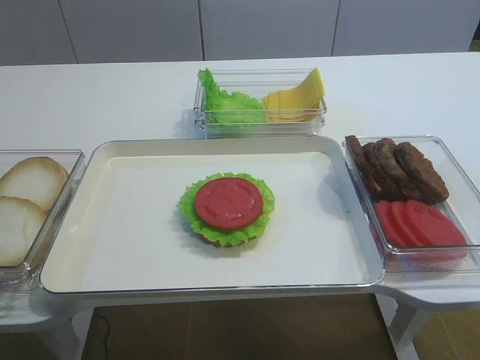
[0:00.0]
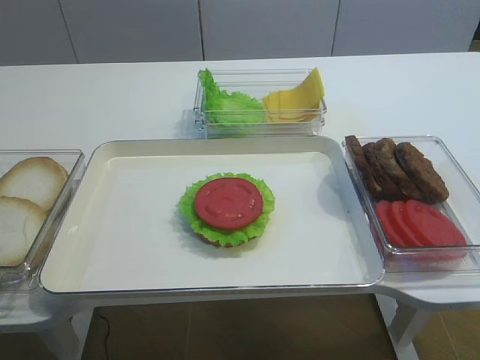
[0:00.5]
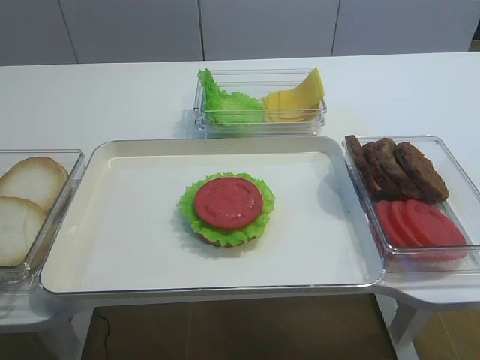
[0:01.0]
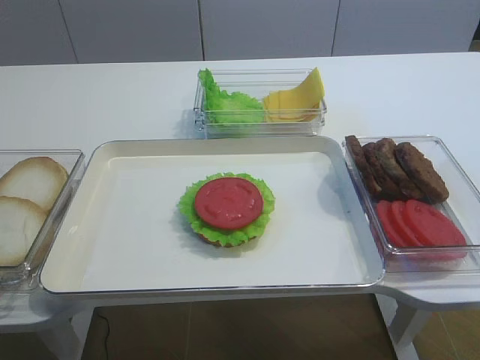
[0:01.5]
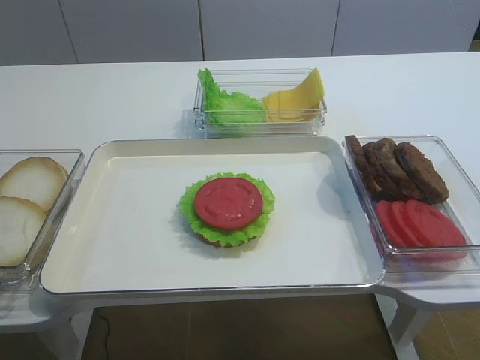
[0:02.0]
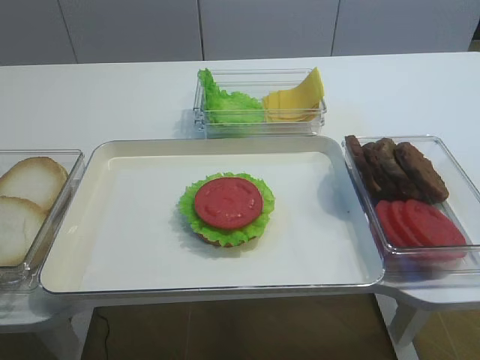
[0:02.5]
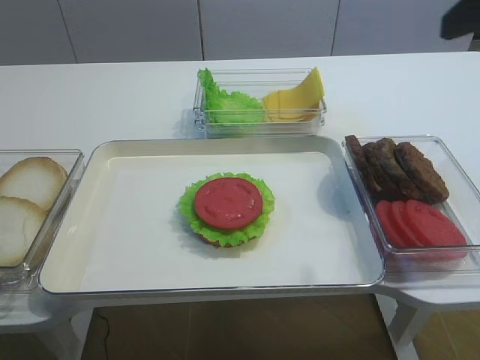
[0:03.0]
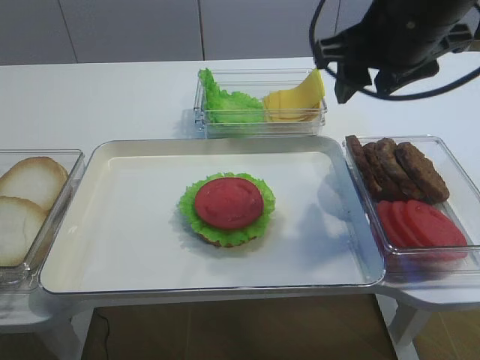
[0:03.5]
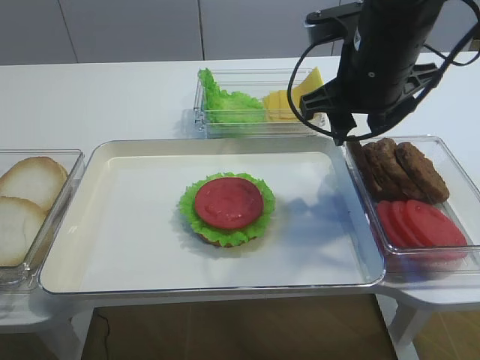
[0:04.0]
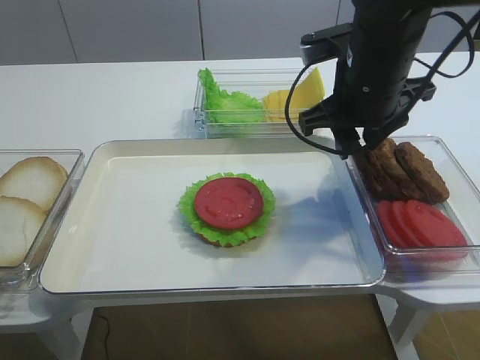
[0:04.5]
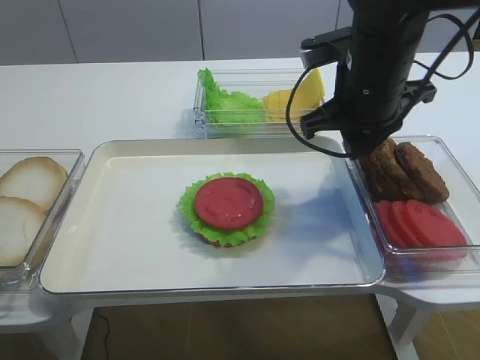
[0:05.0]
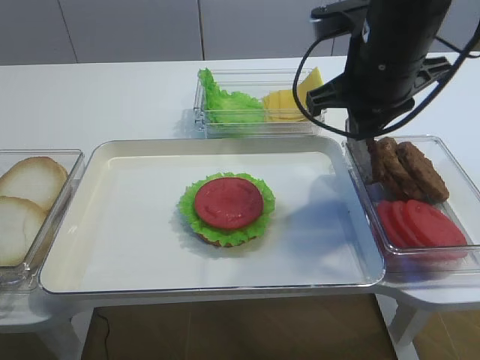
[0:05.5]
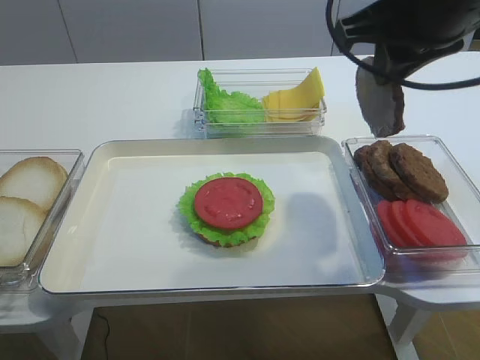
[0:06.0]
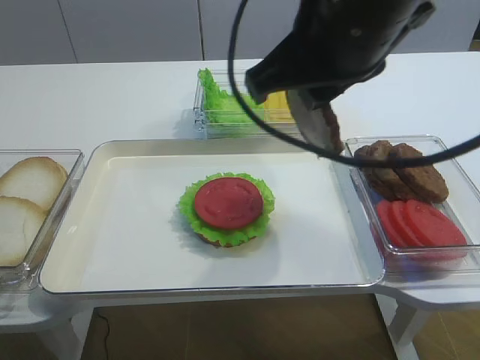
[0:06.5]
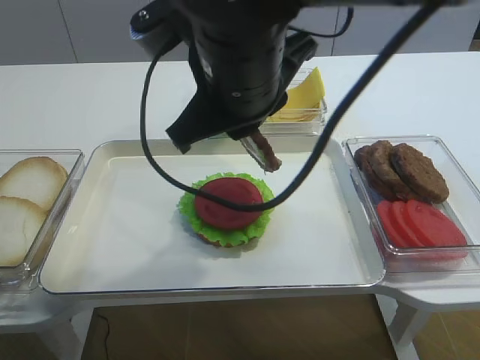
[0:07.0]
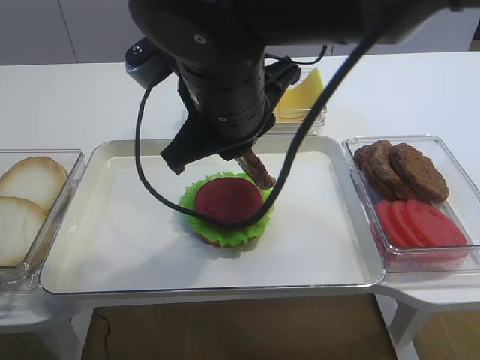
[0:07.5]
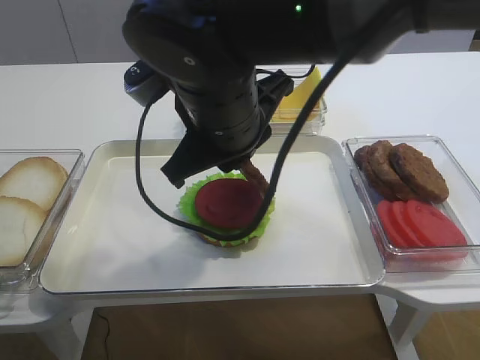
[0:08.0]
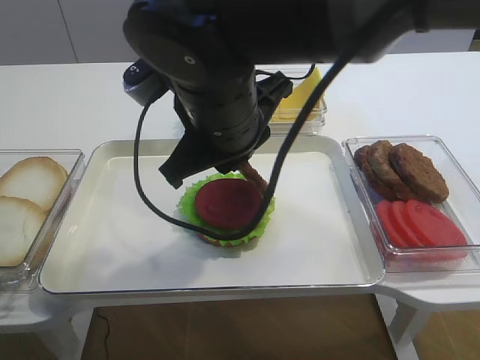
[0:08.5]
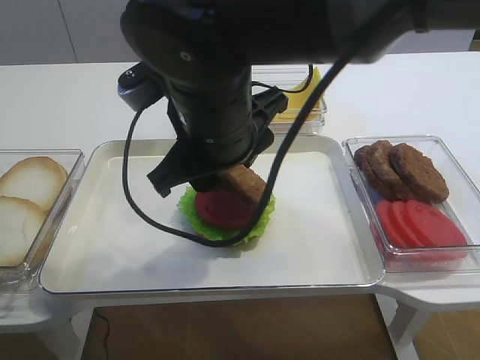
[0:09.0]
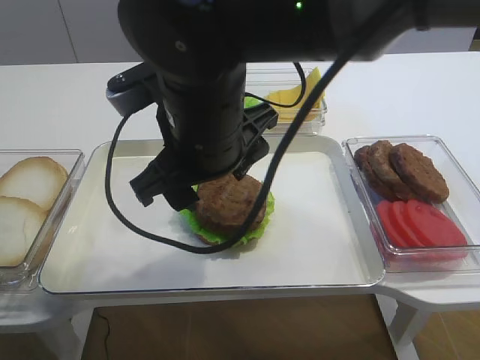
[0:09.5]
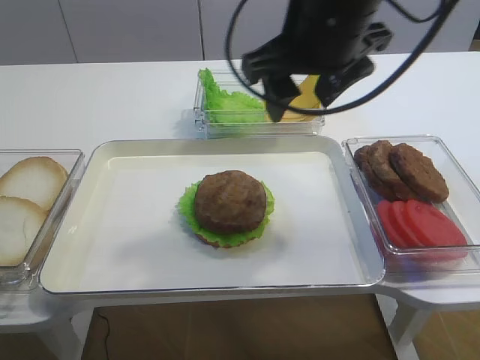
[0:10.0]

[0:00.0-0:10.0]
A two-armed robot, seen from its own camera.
Step, 0:00.0 to 0:05.5: Pick up the cutlet with the right gripper.
Step, 0:06.0 to 0:09.0: Place the cutlet on the tomato slice with the right gripper.
0:02.0 to 0:04.0: The right gripper goes roughly 35 cm forward and to the left.
0:04.0 to 0:06.0: The right gripper heads upward, covering approximately 5 cm, and closes its fingers.
0:06.0 to 0:08.0: The right gripper heads to the left and downward, covering about 20 cm.
0:08.0 to 0:10.0: The right gripper is displaced to the right and upward by approximately 10 cm, and opens its fingers.

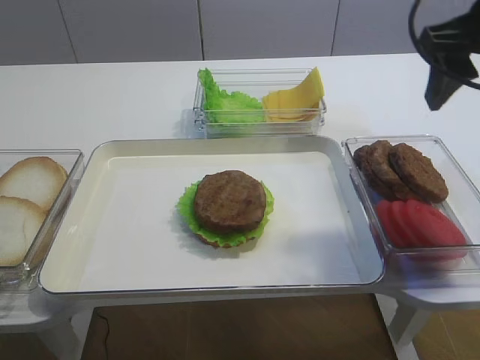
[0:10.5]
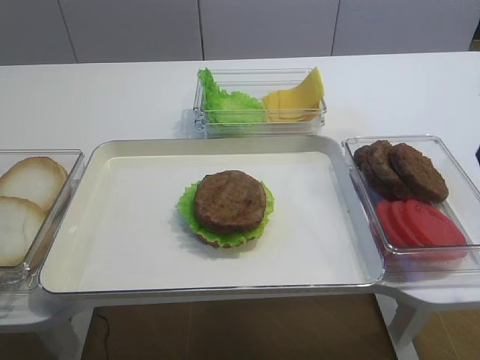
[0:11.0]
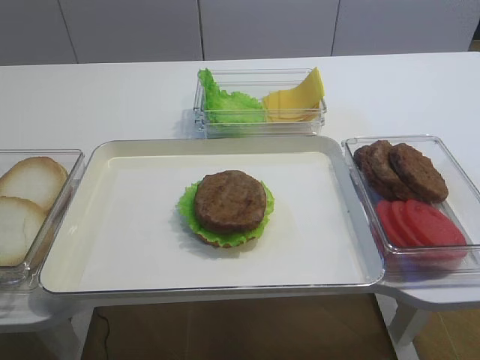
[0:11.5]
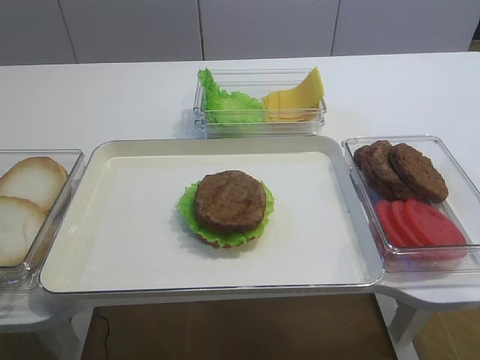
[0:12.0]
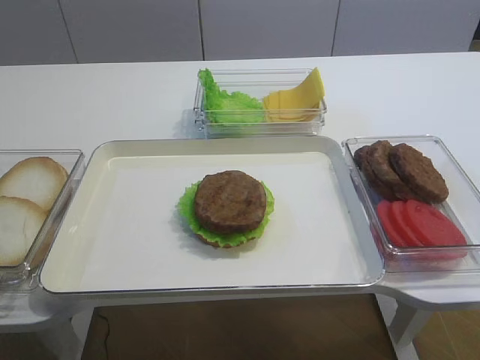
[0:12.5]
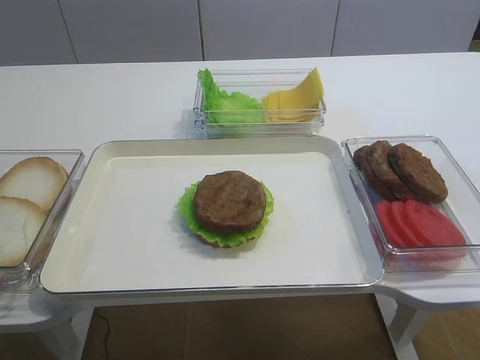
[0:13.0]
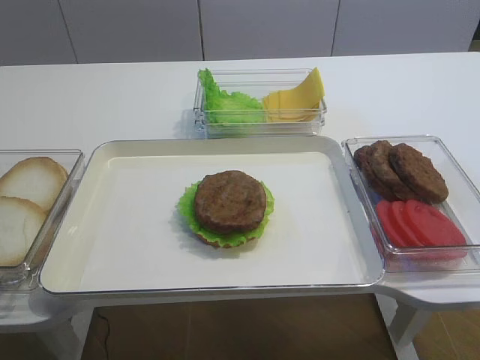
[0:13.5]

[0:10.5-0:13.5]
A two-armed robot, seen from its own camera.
0:10.5 to 0:12.0: The right gripper heads backward, covering roughly 30 cm.

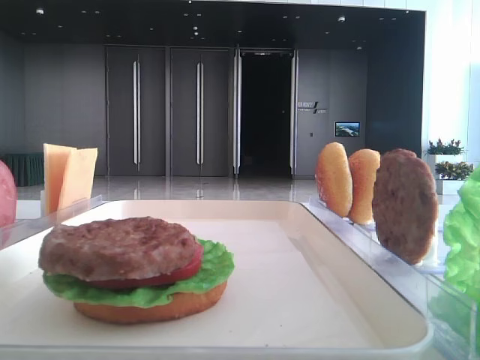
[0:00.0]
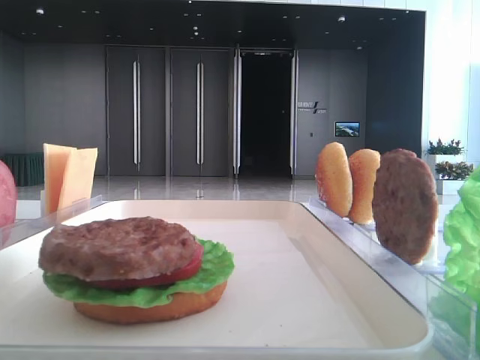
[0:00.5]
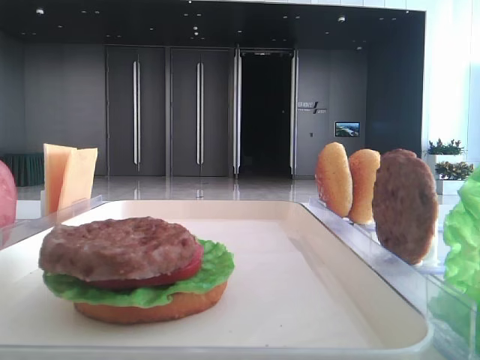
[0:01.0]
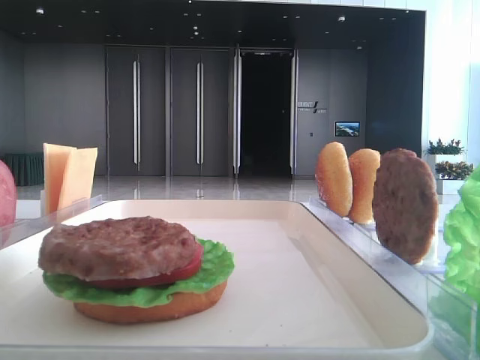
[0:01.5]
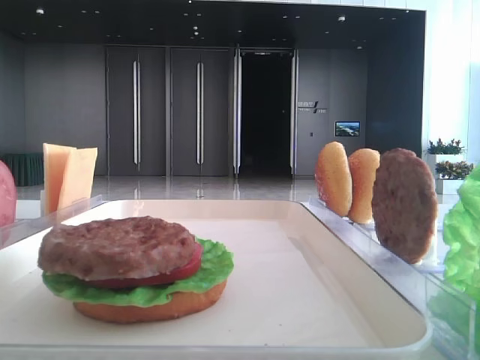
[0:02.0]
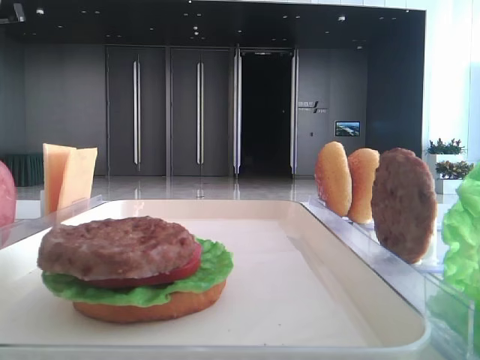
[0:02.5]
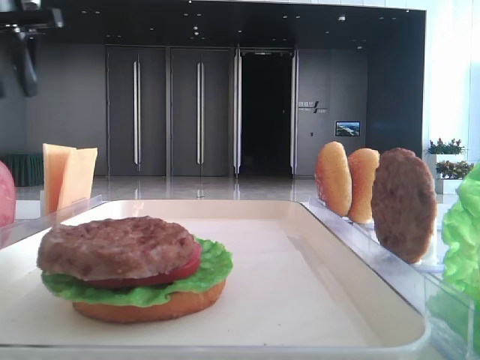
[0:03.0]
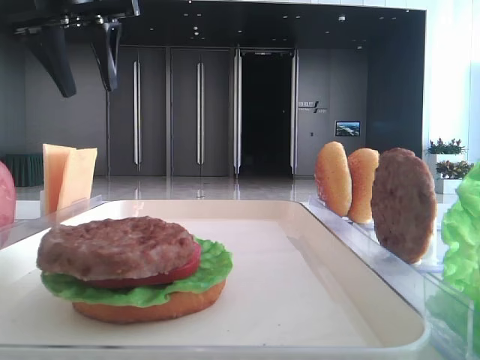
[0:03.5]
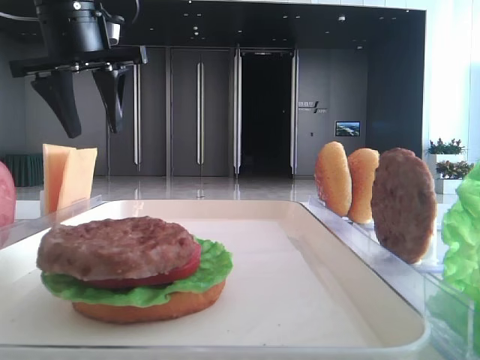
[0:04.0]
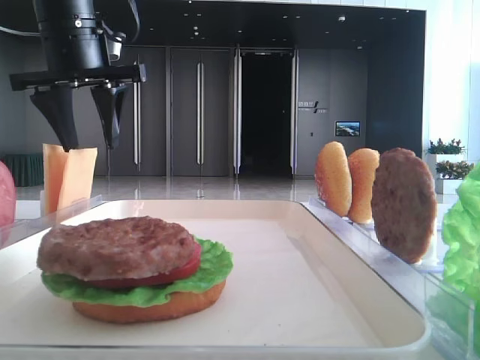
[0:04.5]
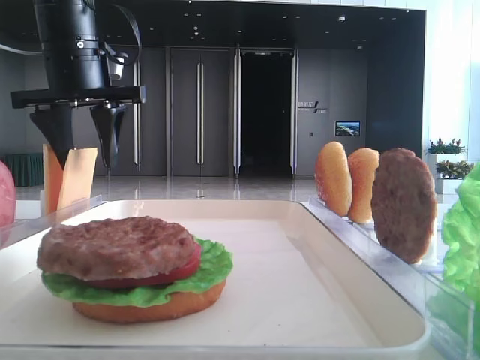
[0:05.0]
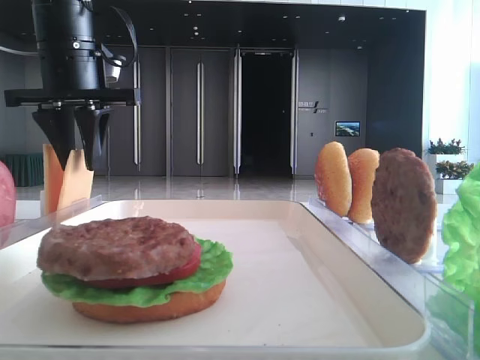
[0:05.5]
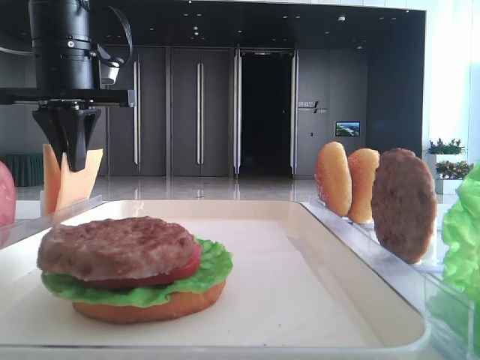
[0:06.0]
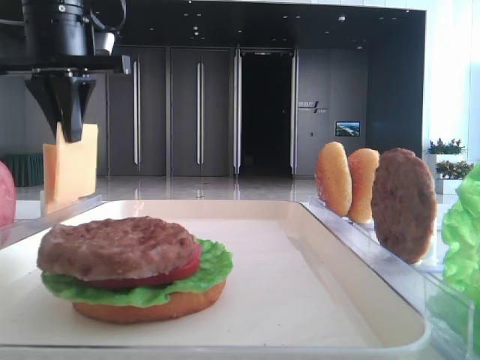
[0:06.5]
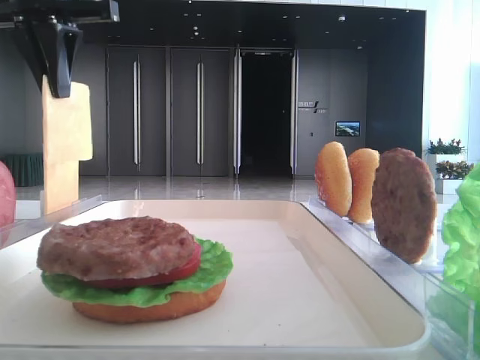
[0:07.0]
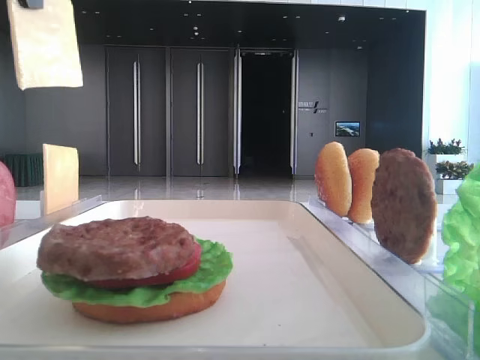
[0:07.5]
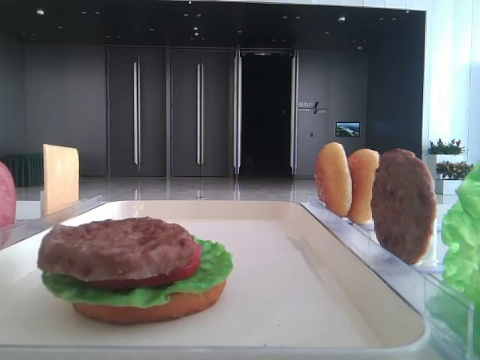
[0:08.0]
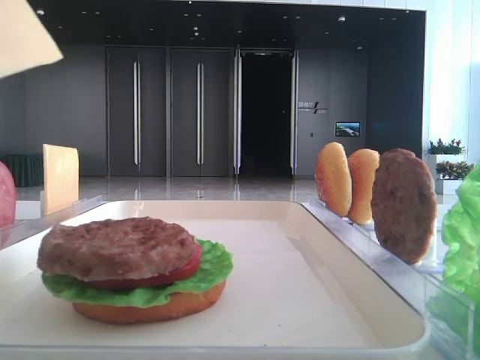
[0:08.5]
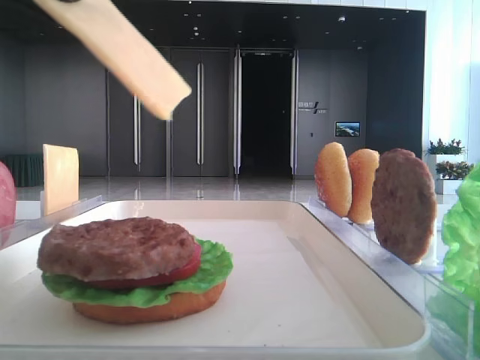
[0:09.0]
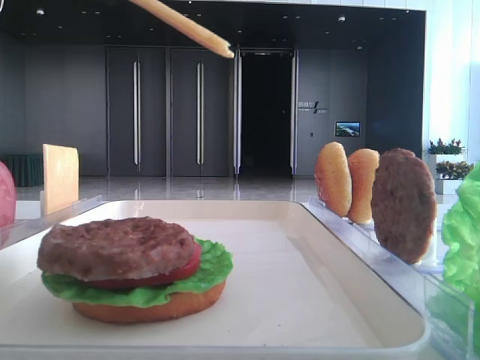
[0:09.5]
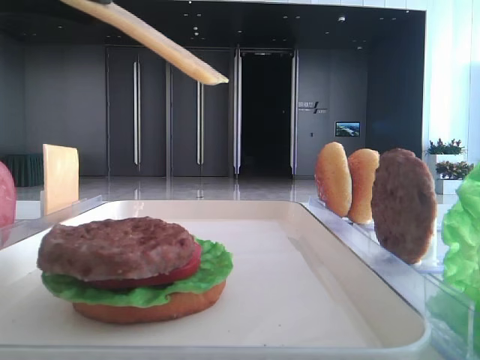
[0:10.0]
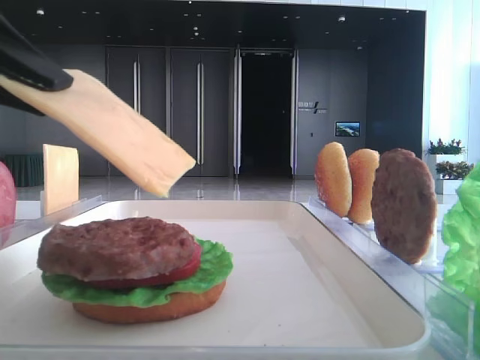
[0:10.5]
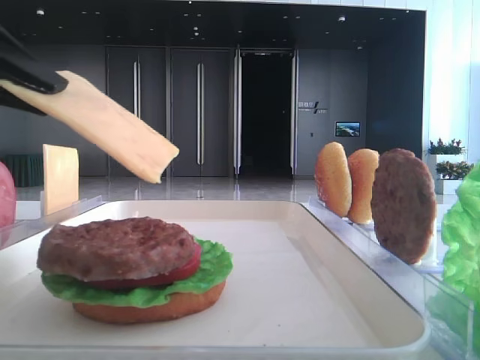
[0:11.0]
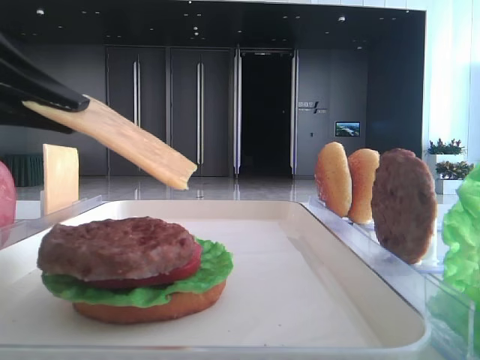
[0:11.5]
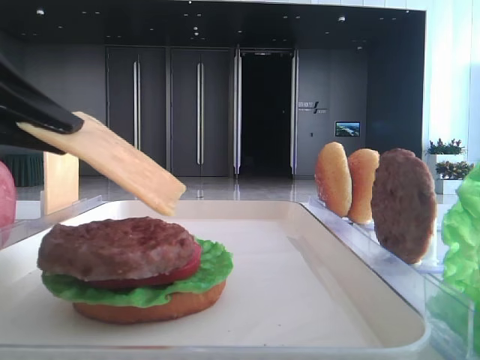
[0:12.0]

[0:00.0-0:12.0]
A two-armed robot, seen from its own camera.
Step, 0:00.0 to 0:06.0: Pick up the cheese slice with the left hand.
0:02.0 to 0:04.0: The left gripper goes roughly 20 cm to the right and forward.
0:04.0 to 0:06.0: The left gripper closes up.
0:06.0 to 0:08.0: The left gripper heads backward and upward, covering approximately 25 cm.
0:08.0 to 0:10.0: The left gripper moves downward, about 15 cm.
0:10.0 to 0:12.0: The left gripper moves downward, approximately 5 cm.

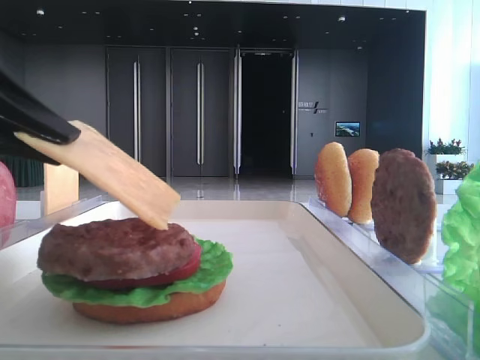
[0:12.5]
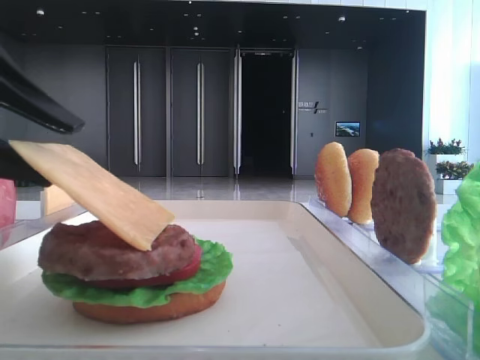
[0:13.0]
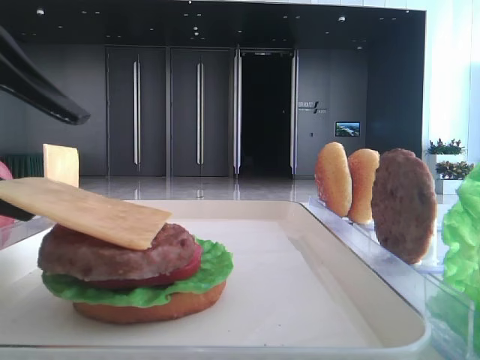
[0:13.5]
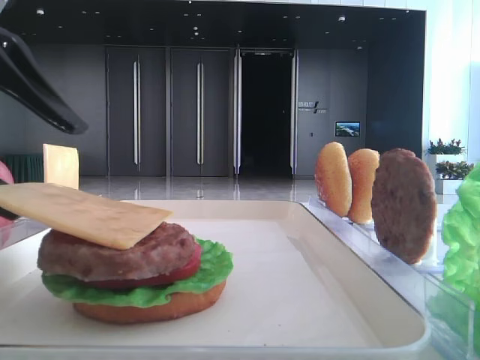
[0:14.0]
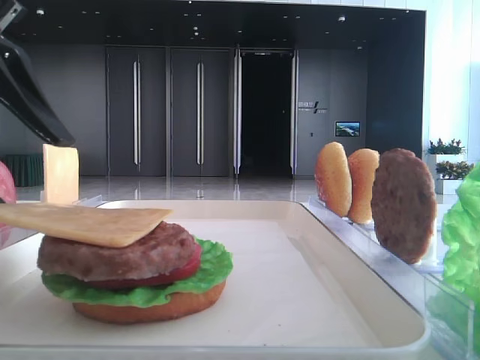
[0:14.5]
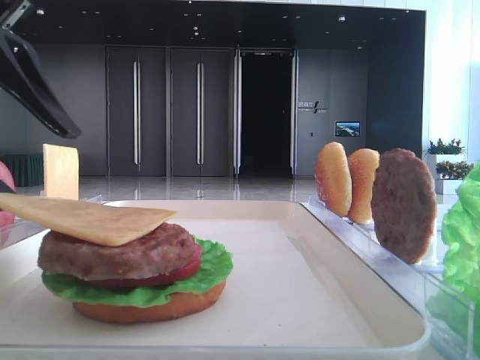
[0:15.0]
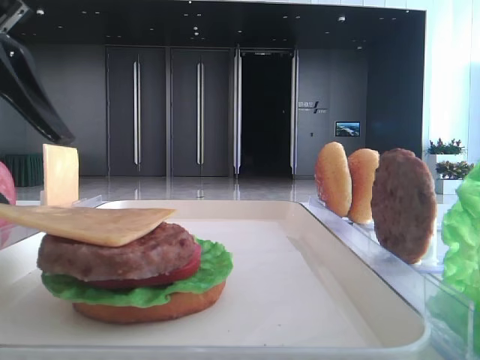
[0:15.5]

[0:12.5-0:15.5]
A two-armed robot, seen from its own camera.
0:12.5 to 0:14.0: The left gripper opens its fingers.
0:14.0 to 0:15.5: There are only small adjustments of the grippers.